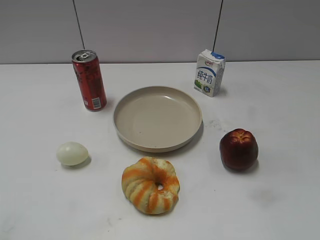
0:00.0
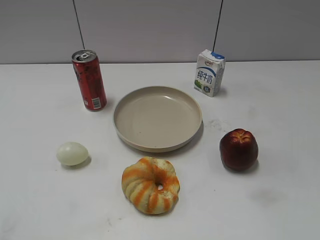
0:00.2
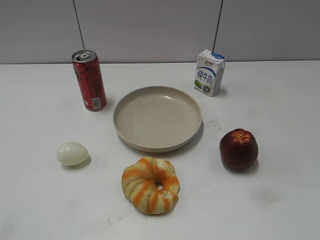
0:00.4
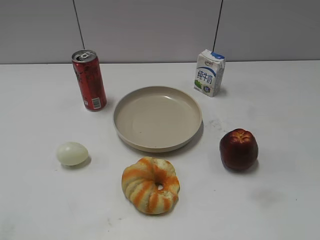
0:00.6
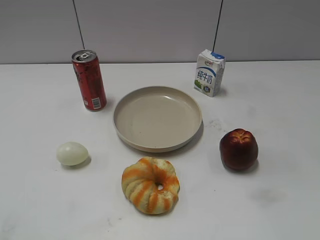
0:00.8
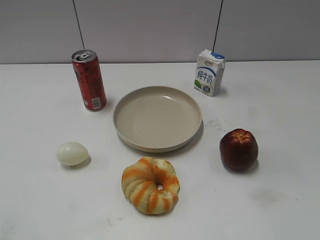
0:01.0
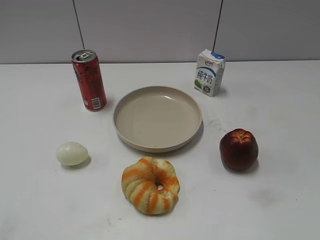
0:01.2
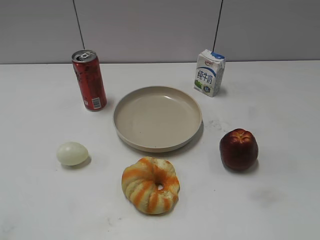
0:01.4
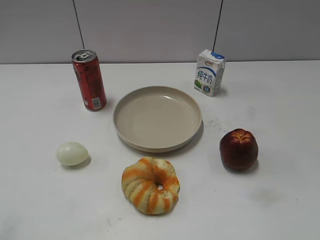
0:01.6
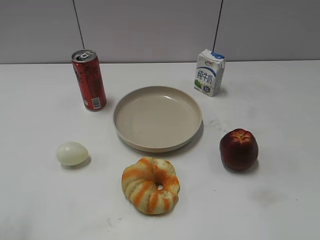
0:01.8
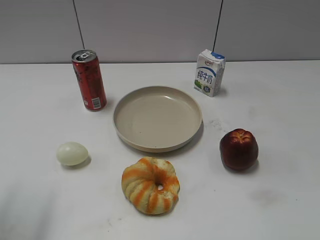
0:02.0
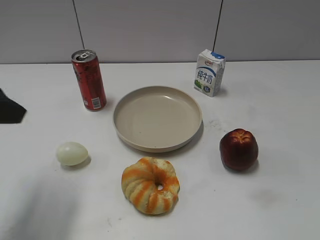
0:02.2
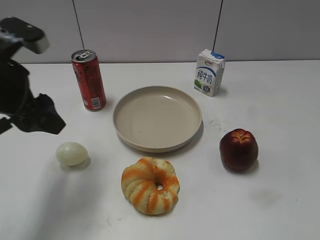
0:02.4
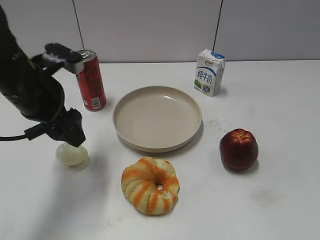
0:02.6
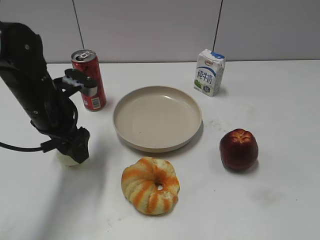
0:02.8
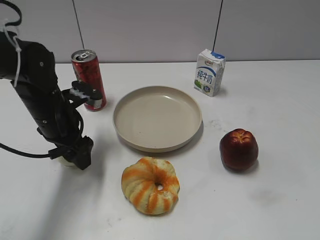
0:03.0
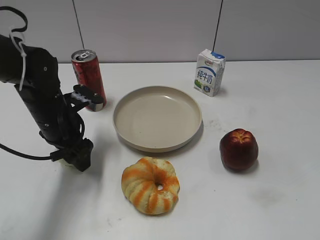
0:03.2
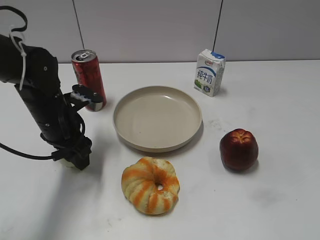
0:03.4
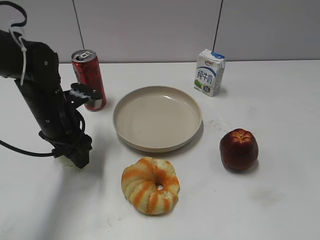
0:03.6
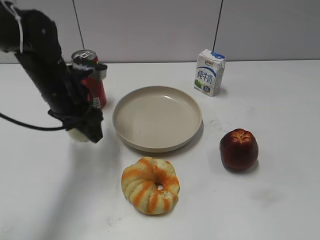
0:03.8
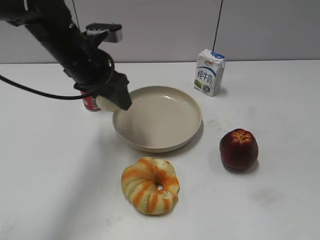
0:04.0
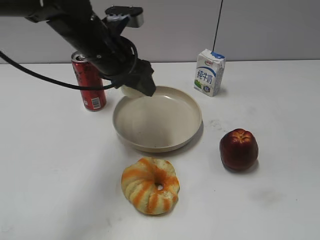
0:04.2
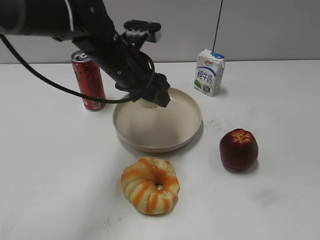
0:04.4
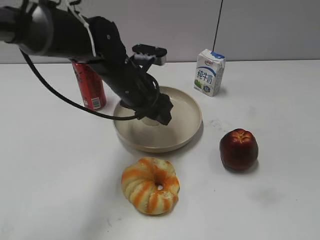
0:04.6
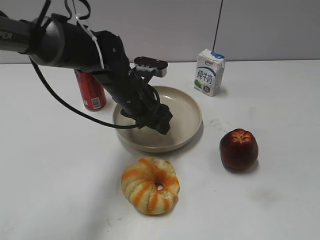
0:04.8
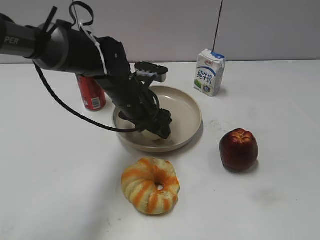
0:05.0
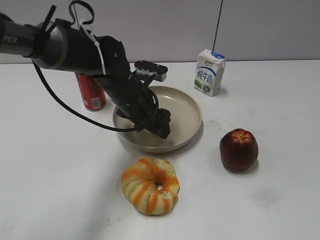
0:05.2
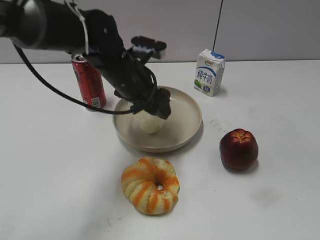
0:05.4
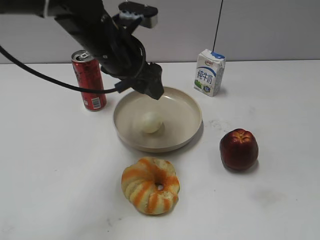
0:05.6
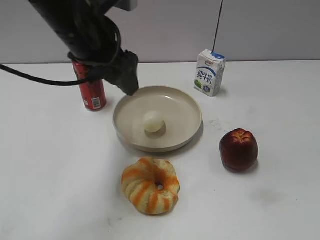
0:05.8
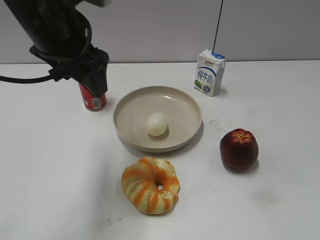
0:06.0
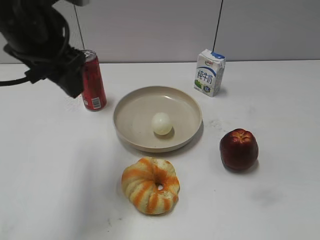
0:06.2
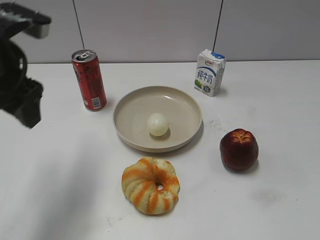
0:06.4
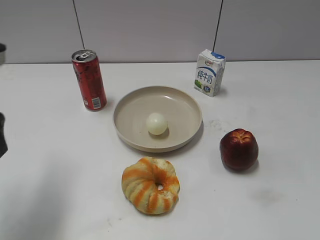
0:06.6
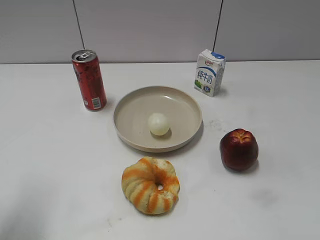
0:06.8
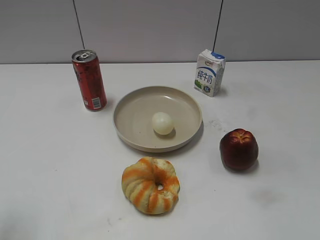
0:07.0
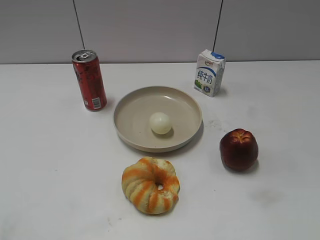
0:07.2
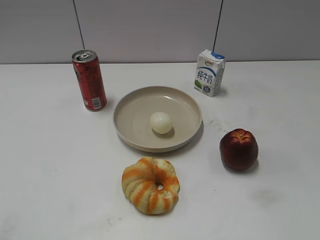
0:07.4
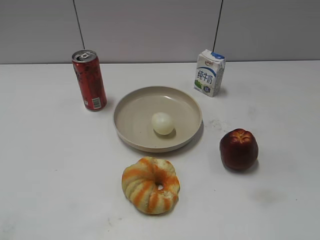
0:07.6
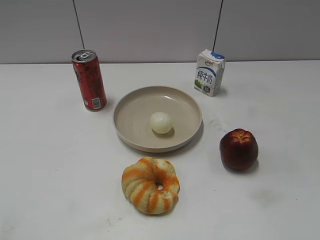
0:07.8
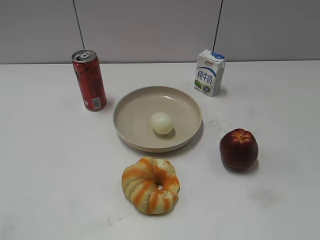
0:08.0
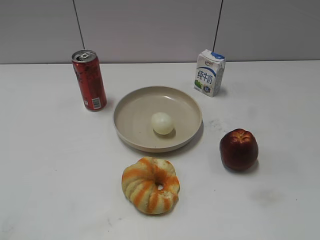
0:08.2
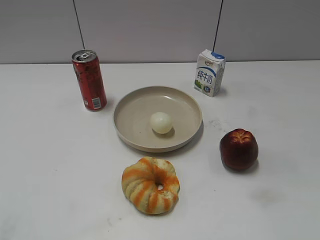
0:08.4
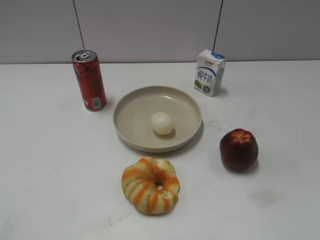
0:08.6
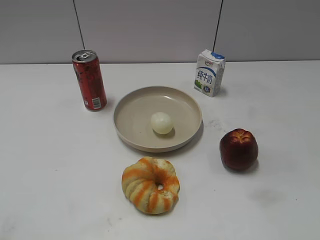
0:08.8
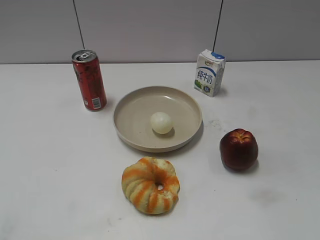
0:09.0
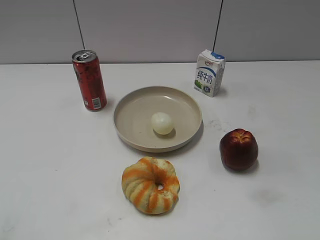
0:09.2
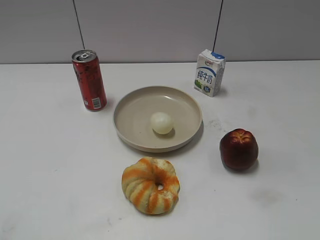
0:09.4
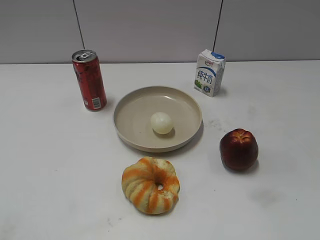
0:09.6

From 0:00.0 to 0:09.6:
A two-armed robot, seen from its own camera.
Step, from 0:01.0 to 0:03.6: Grasp the egg with left gripper.
Step, from 0:03.8 to 0:05.4: Place the egg on the plate with left gripper.
From 0:01.6 to 0:03.2: The left gripper moves forward, downward and to the right, some 35 cm.
From 0:03.2 to 0:04.8: The left gripper goes some 15 cm to the right.
From 0:04.8 to 0:06.4: The left gripper heads to the left, upward and backward, covering approximately 25 cm.
From 0:06.4 to 0:08.0: The left gripper is displaced backward and to the left by approximately 30 cm.

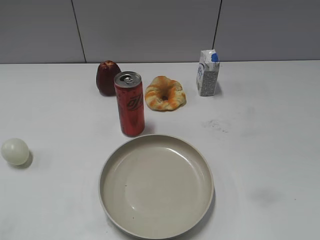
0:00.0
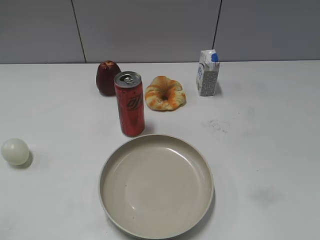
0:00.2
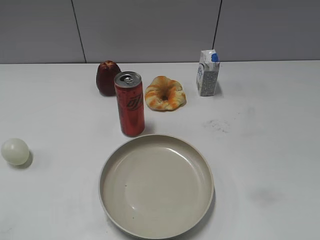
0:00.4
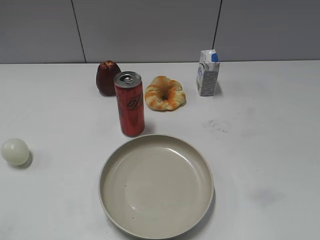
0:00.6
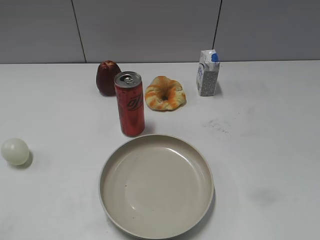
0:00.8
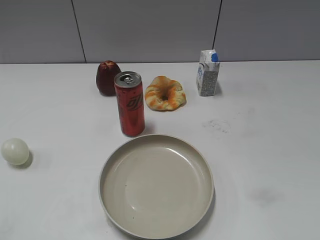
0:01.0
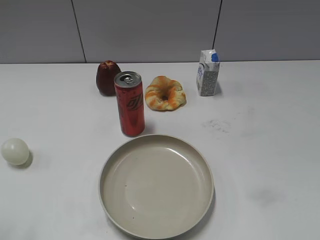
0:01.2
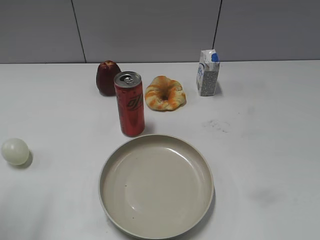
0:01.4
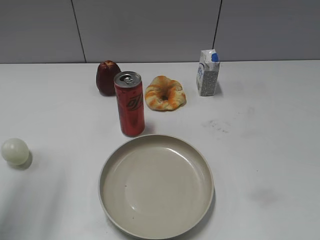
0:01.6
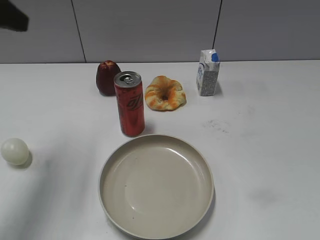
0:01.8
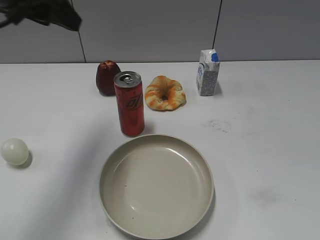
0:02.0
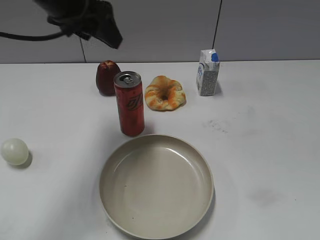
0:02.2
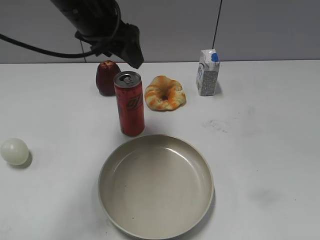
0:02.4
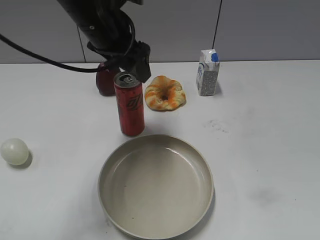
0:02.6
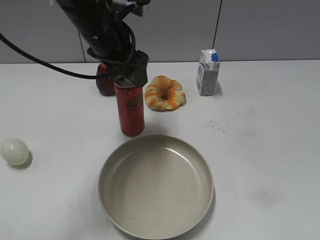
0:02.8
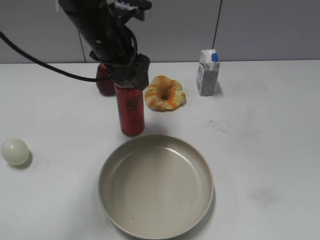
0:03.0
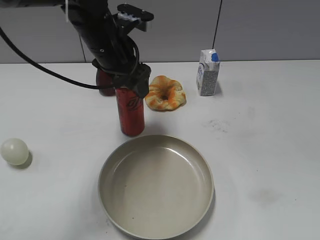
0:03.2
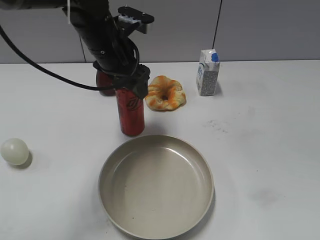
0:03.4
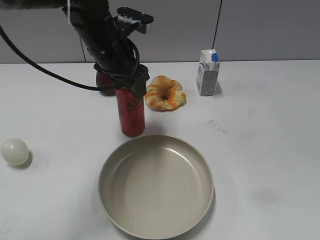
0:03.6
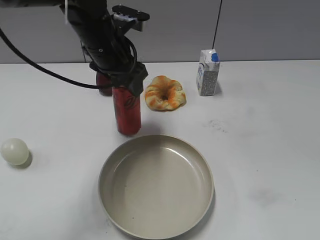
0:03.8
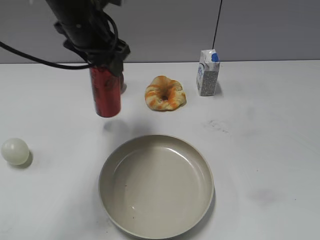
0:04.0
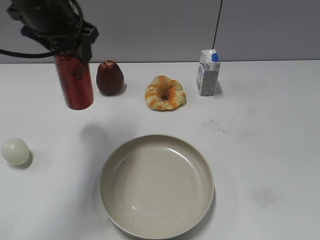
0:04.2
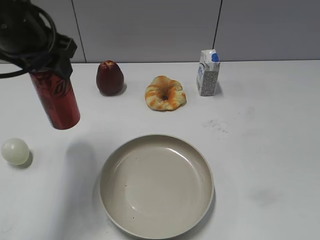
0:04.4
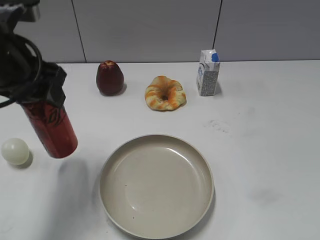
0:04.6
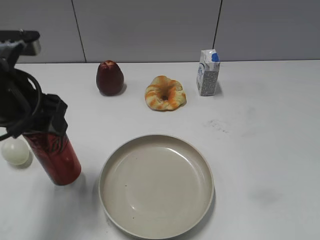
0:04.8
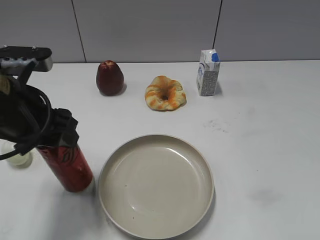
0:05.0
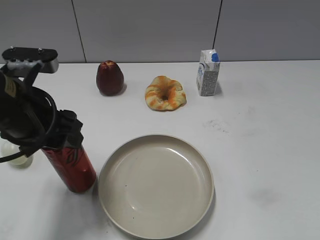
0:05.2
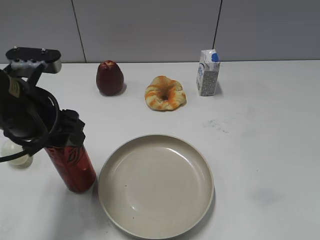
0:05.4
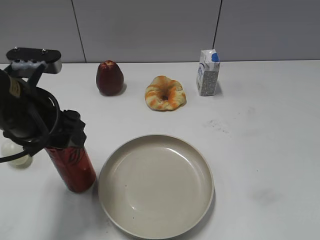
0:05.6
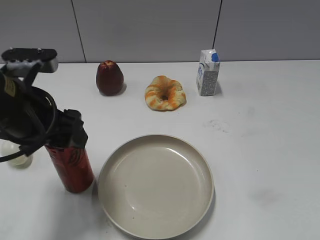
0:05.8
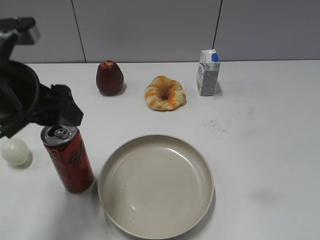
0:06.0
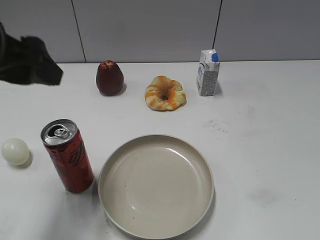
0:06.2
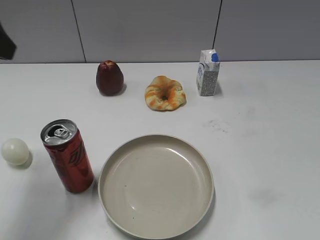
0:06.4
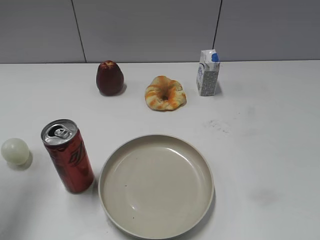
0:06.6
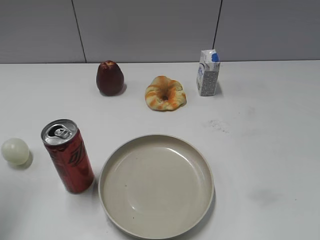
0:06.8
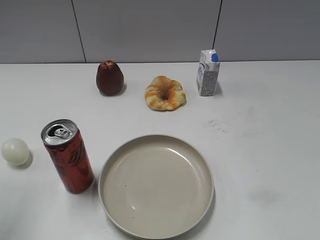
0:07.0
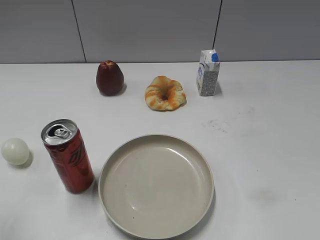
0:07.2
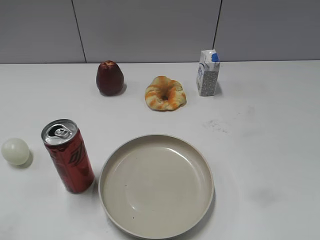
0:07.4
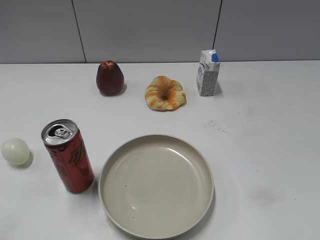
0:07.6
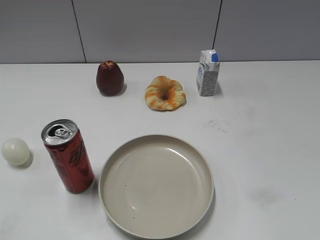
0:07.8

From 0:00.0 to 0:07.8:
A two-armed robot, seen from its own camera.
Step, from 0:00.8 to 0:03.6: Grasp the cola with left gripper.
From 0:01.6 to 0:03.2: The left gripper moves to the right, forward and downward, some 30 cm, and opens its fingers.
From 0:03.2 to 0:04.6: The left gripper shifts roughly 15 cm to the left, backward and upward, and closes its fingers.
From 0:04.6 to 0:06.2: The left gripper heads backward, covering about 5 cm, and opens.
From 0:06.2 to 0:07.8: The left gripper shifts some 20 cm backward and to the left, and closes its fingers.

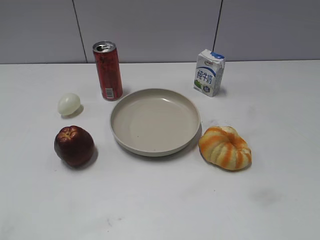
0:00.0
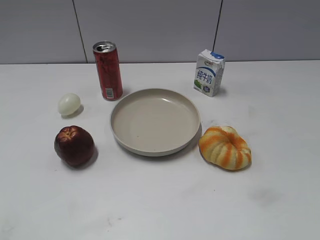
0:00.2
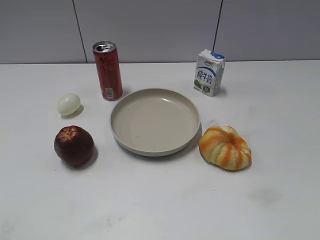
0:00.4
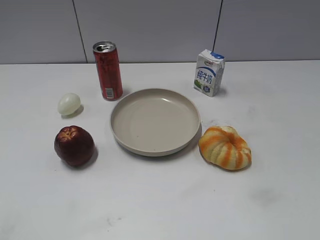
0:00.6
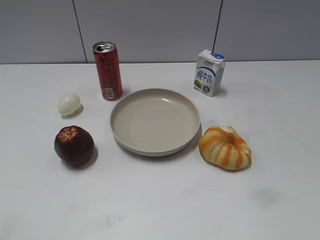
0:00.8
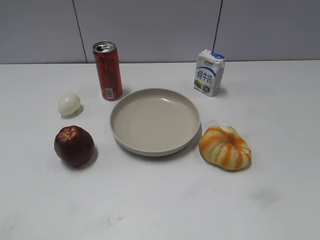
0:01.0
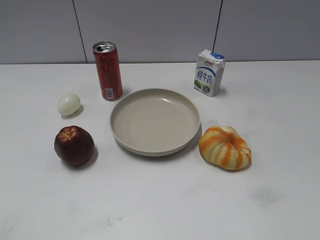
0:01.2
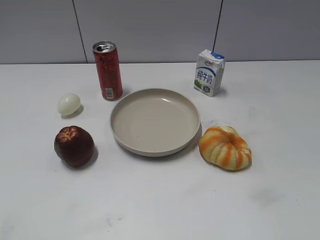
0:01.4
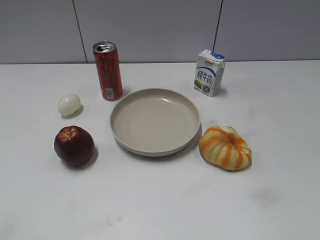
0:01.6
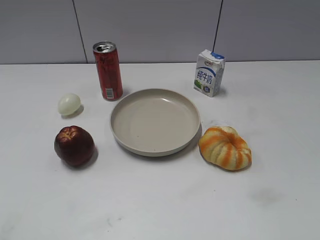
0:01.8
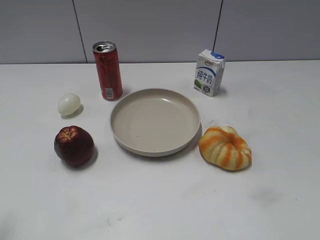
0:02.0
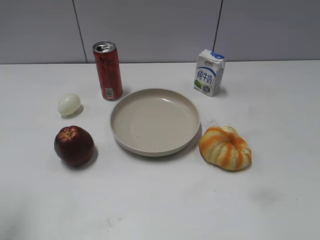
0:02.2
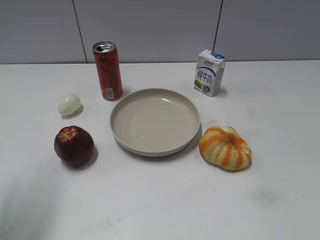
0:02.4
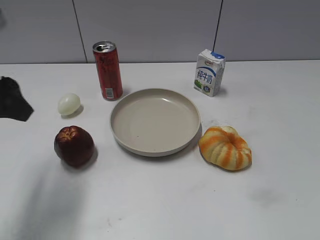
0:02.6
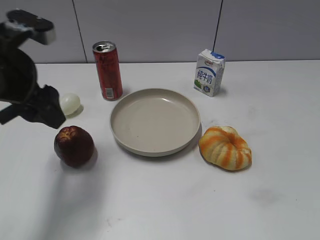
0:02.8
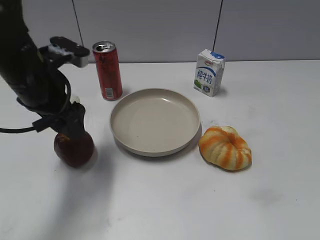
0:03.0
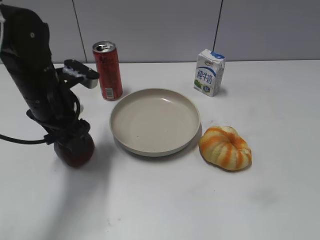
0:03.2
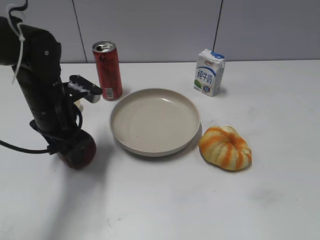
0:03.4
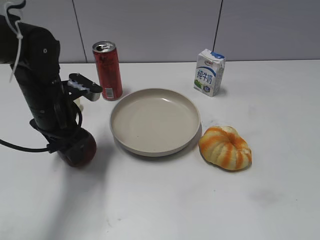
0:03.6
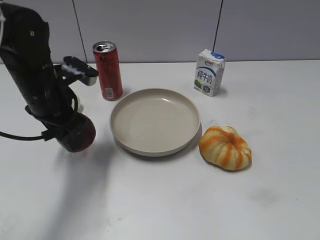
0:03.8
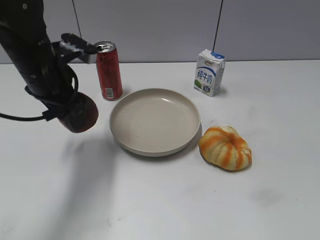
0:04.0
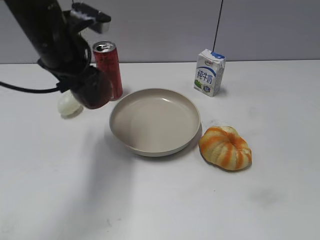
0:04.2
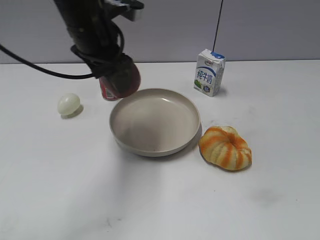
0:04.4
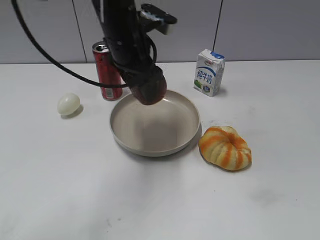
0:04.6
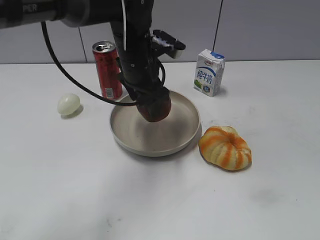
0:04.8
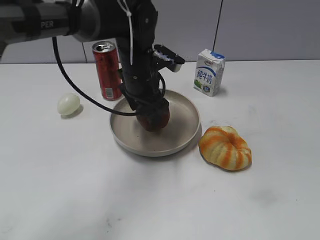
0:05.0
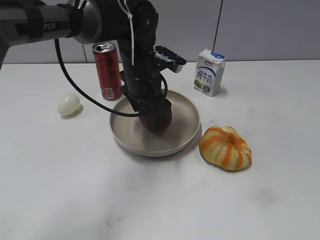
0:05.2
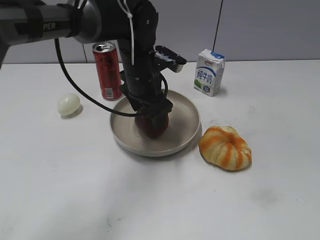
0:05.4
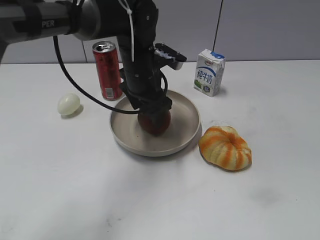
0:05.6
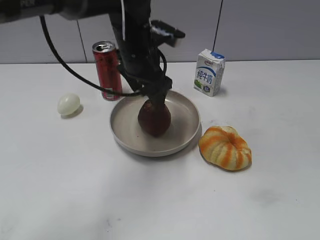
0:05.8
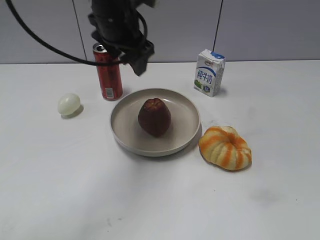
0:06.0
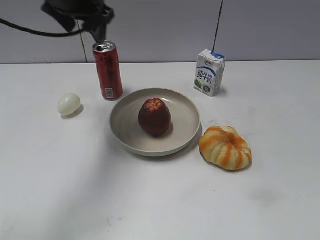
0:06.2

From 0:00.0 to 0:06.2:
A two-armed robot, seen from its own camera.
Step, from 0:02.6 to 0:03.4: Grasp the apple with left gripper.
Step, from 0:03.8 to 0:05.8: Place the apple on the plate with left gripper.
From 0:01.6 to 0:03.2: The left gripper goes approximately 35 cm forward and to the right.
From 0:03.2 to 0:04.6: The left gripper goes roughly 15 cm to the right, upward and forward.
From 0:04.6 to 0:06.2: The left gripper is displaced to the left and upward by some 15 cm.
